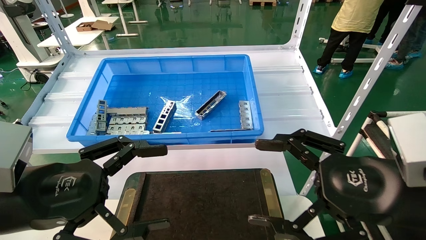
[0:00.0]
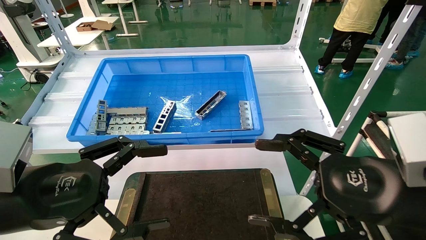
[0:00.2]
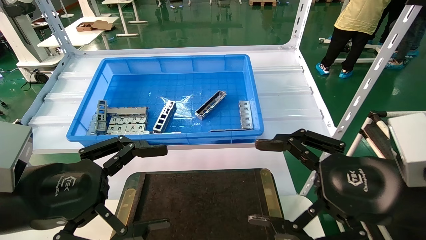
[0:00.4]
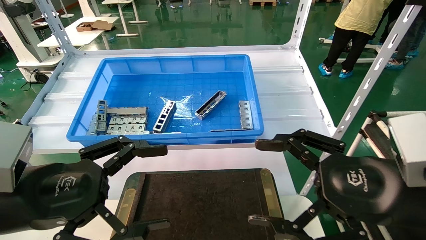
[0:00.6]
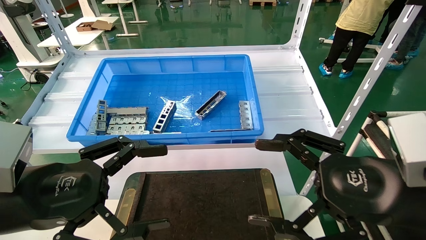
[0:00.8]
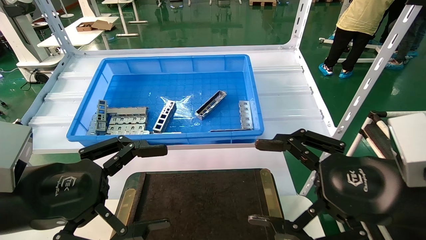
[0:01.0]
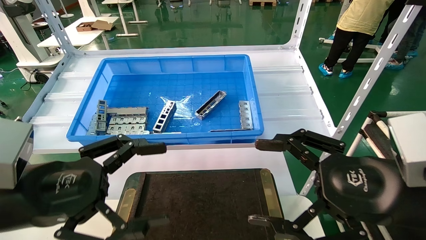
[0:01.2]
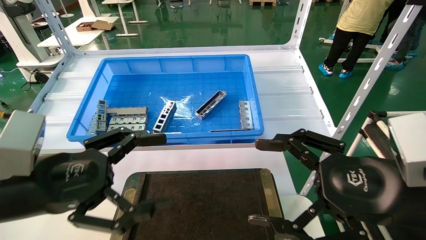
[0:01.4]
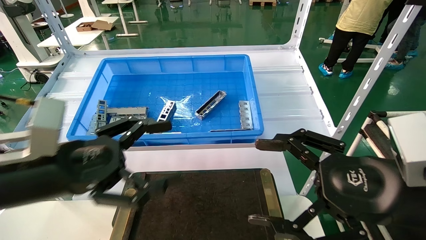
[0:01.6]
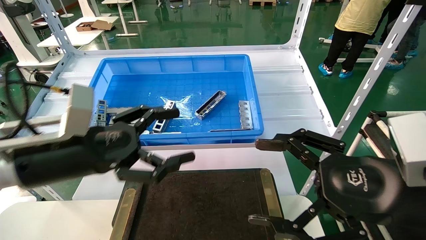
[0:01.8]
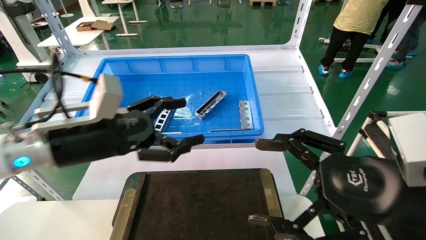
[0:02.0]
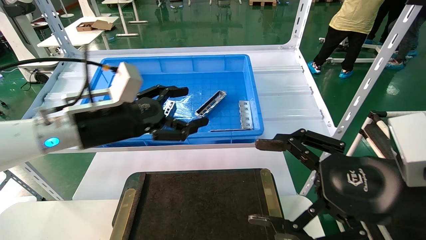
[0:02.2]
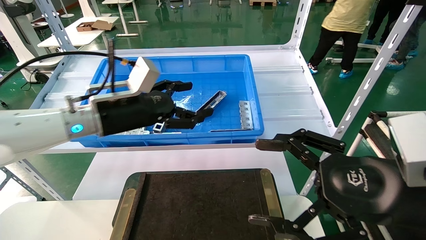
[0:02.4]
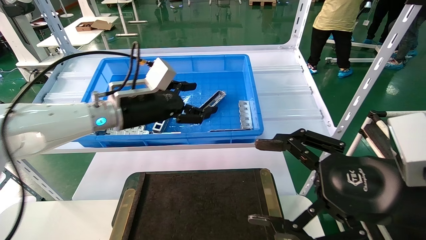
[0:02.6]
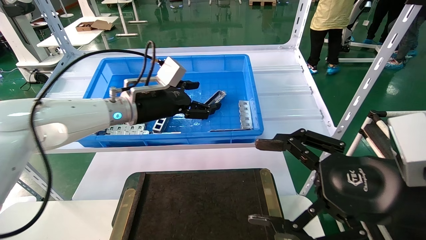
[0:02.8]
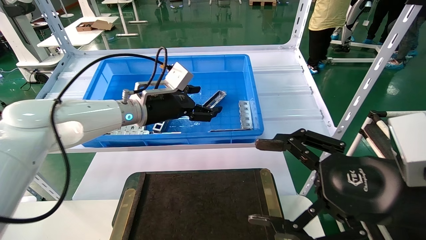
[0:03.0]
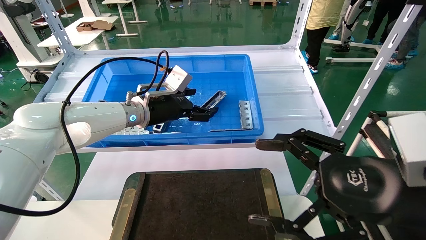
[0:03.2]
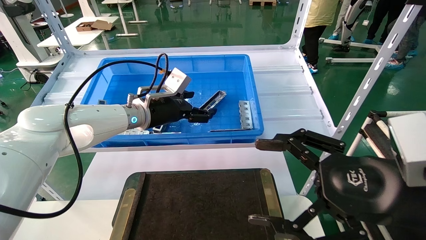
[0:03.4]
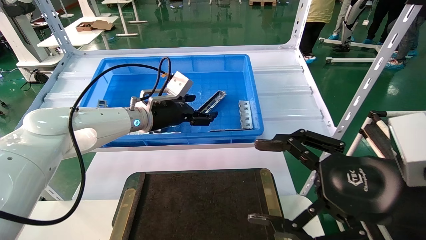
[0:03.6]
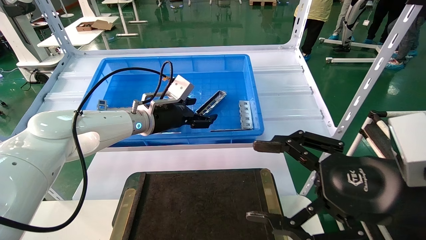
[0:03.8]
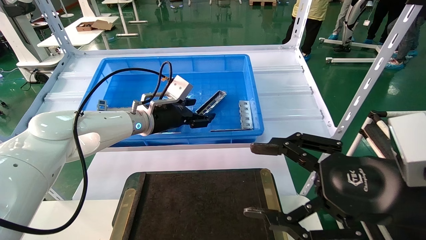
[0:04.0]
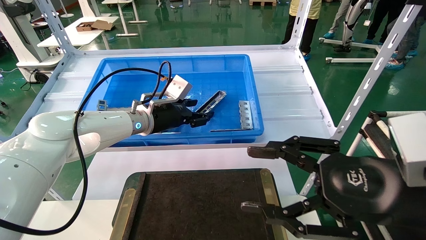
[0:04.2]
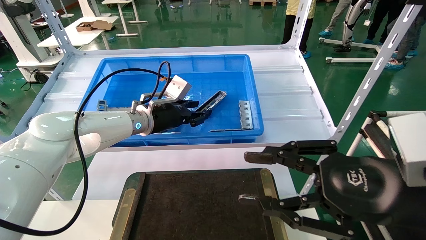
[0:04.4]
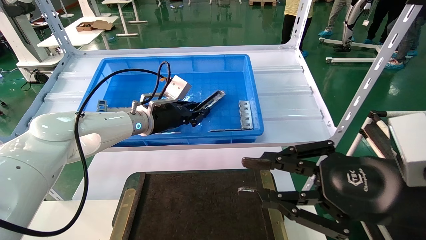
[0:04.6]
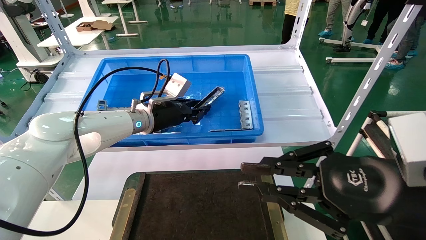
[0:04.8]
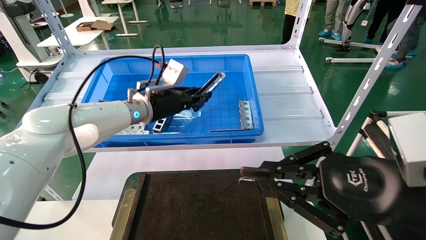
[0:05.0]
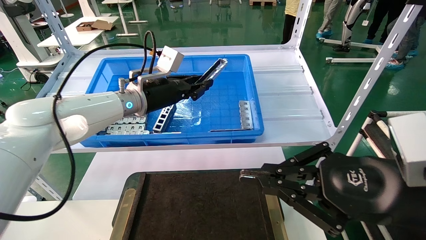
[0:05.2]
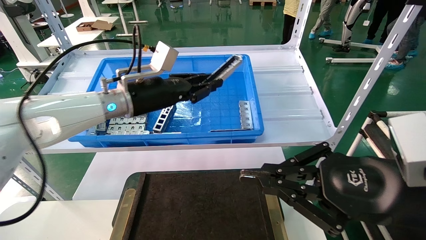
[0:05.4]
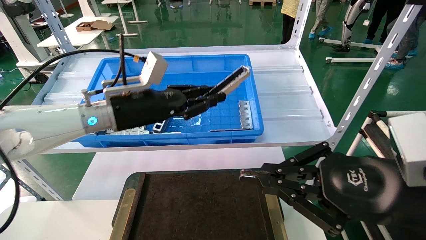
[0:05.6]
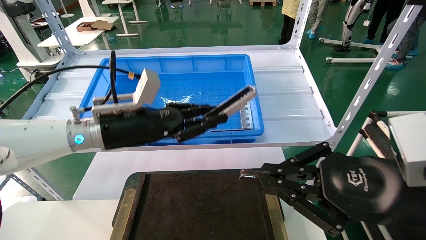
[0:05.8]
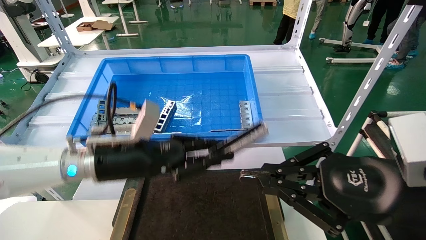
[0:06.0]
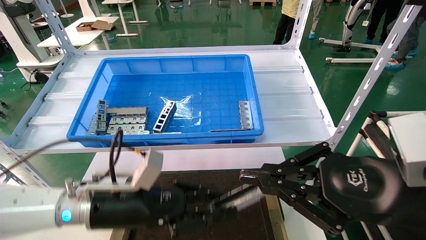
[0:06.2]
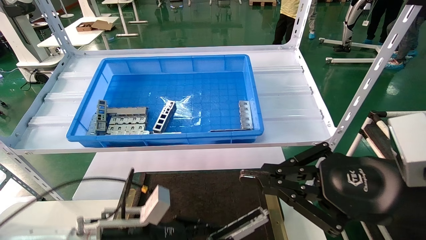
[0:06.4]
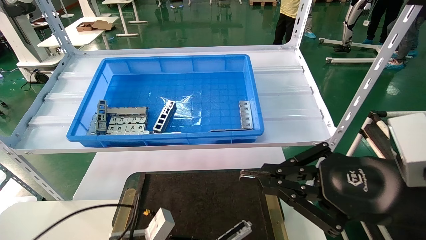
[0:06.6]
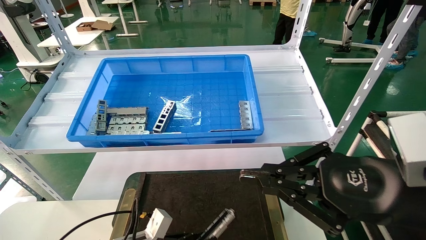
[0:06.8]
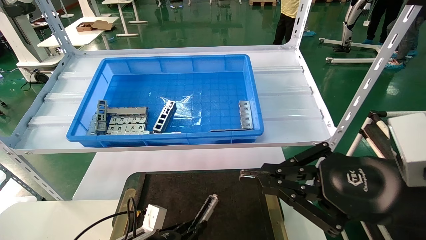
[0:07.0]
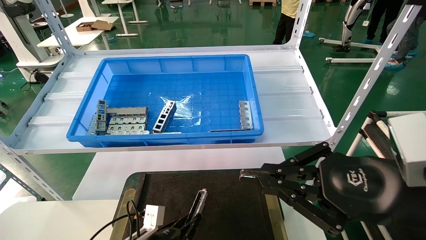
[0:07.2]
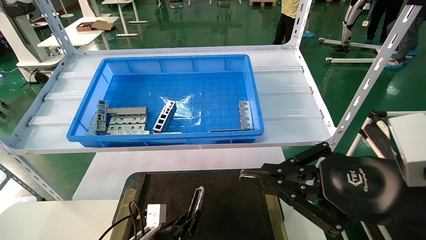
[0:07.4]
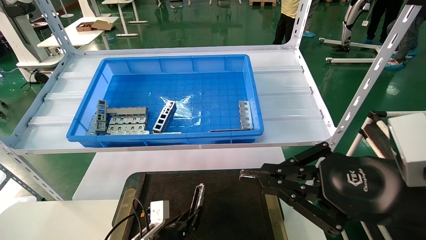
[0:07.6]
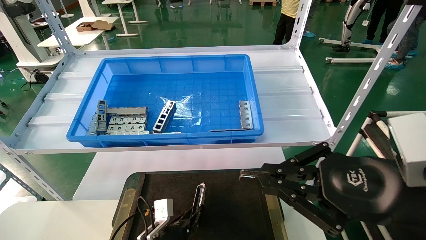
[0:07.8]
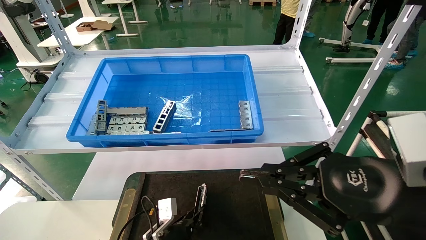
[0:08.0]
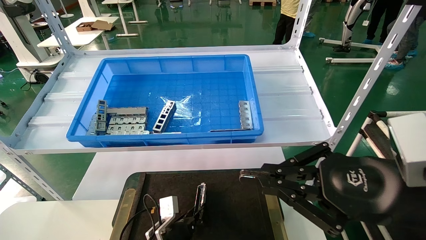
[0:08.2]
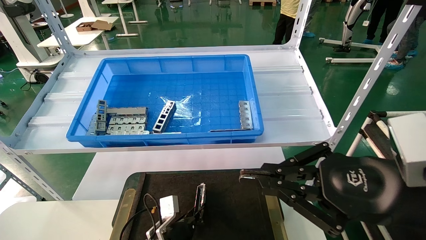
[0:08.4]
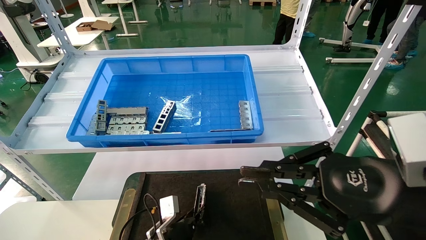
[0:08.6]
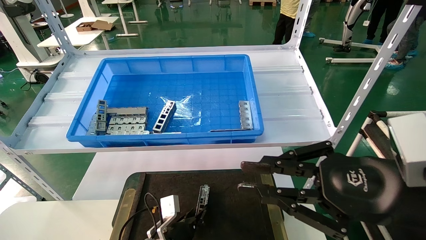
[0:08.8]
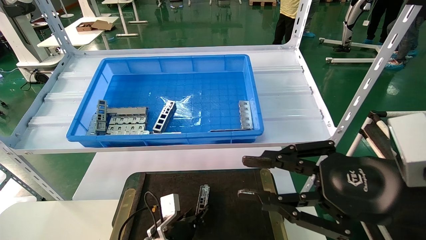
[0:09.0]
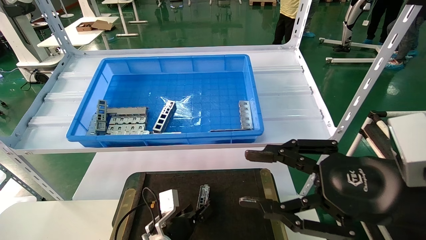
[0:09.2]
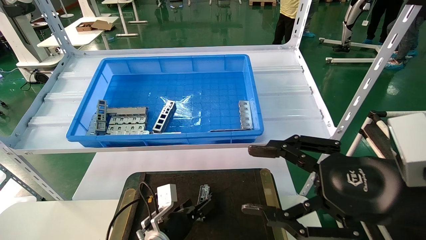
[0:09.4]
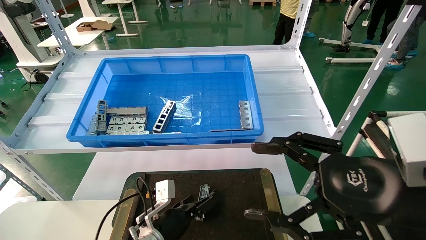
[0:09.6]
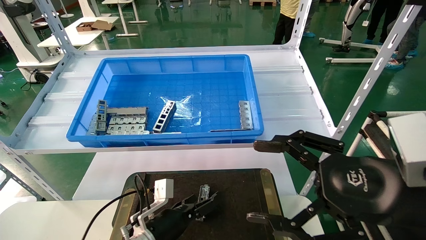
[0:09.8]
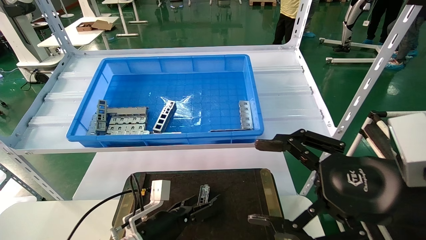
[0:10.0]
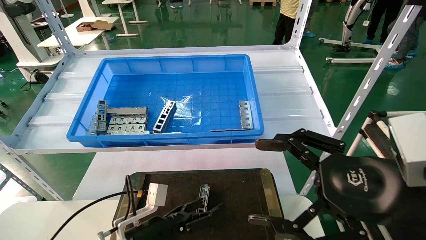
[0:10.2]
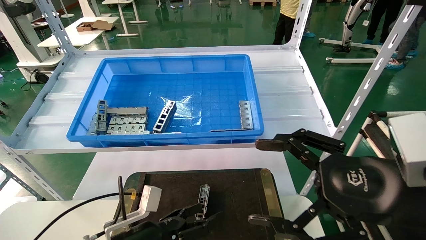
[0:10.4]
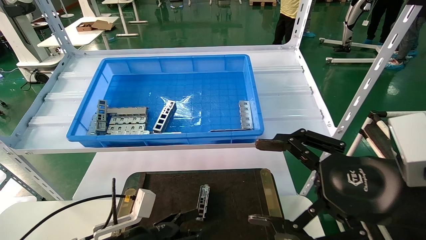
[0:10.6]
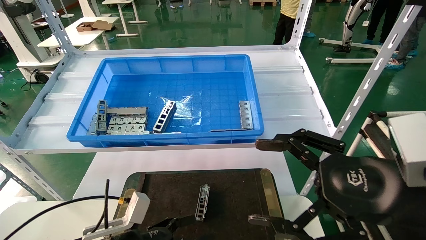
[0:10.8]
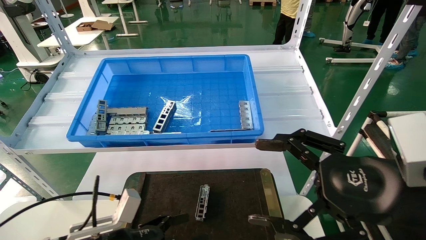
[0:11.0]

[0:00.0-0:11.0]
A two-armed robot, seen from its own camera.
Task of the whole recording: Grasp the part with one hand and place it on the black container.
Step, 0:01.6 to 0:04.6: Pick up the front USB bracket from the feeding area.
Step, 0:04.8 to 0:08.6: Place the front USB bracket into the box.
0:00.0 to 0:01.6: The grippers move only a little.
0:01.6 to 0:03.2: The left gripper travels forward and to the right by roughly 25 cm.
0:03.2 to 0:04.8: The left gripper closes; the right gripper closes.
0:04.8 to 0:06.2: The left gripper travels backward and downward by roughly 20 cm.
0:06.2 to 0:07.8: The left gripper goes some 20 cm downward.
0:07.8 to 0:09.4: The left gripper moves roughly 5 cm, and opens. The right gripper opens its fingers.
0:09.4 to 0:11.0: The right gripper opens up; the left gripper goes about 15 cm to the left, backward and upward, and opens its fingers.
